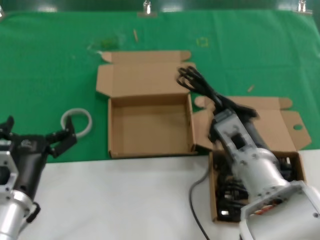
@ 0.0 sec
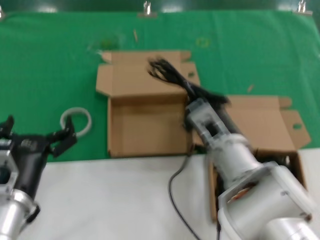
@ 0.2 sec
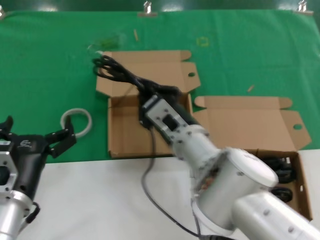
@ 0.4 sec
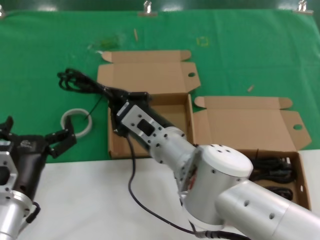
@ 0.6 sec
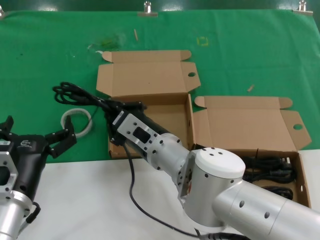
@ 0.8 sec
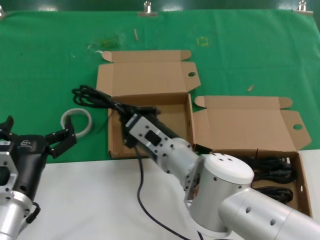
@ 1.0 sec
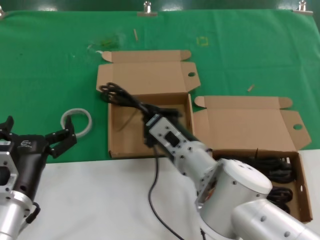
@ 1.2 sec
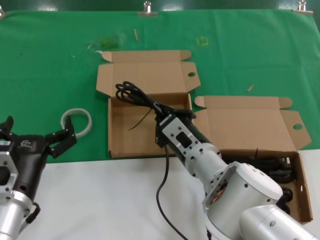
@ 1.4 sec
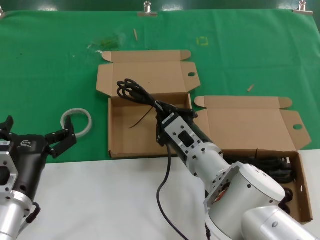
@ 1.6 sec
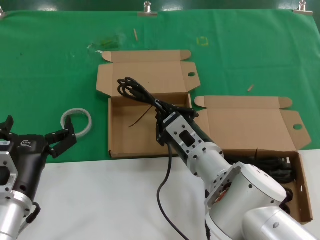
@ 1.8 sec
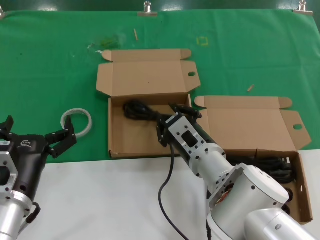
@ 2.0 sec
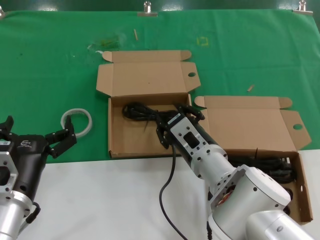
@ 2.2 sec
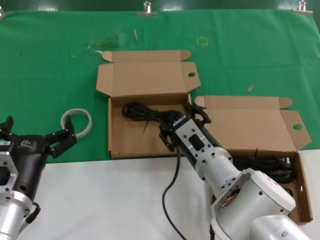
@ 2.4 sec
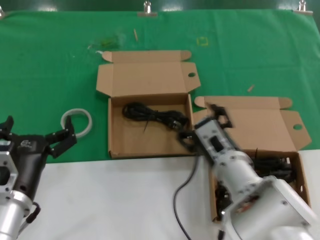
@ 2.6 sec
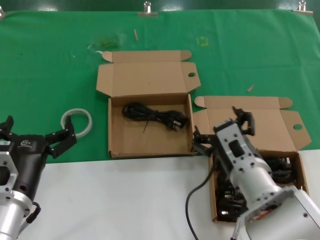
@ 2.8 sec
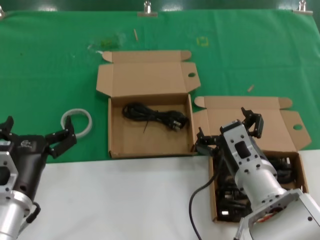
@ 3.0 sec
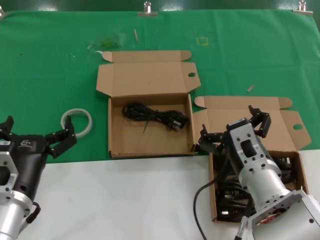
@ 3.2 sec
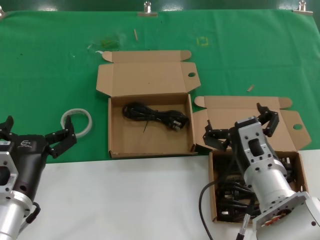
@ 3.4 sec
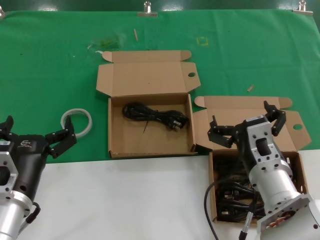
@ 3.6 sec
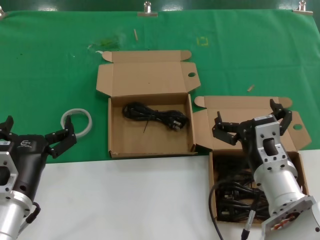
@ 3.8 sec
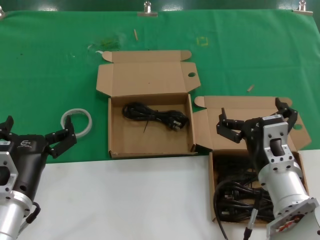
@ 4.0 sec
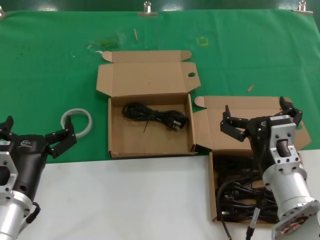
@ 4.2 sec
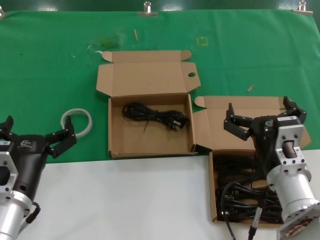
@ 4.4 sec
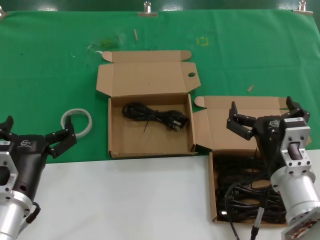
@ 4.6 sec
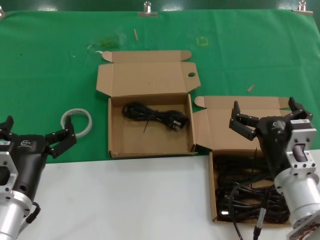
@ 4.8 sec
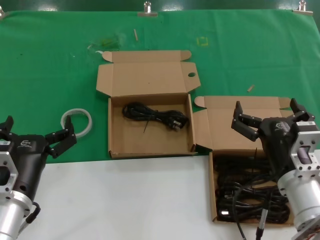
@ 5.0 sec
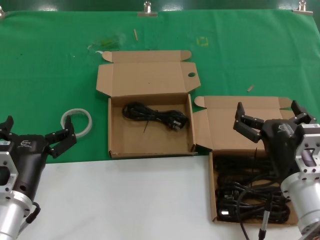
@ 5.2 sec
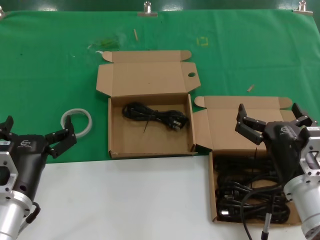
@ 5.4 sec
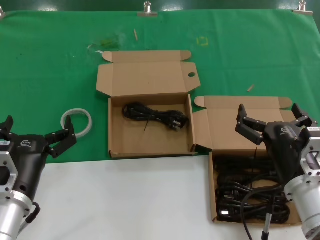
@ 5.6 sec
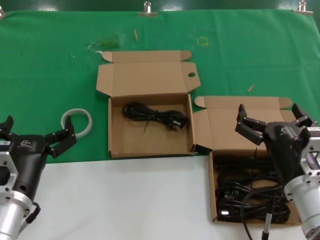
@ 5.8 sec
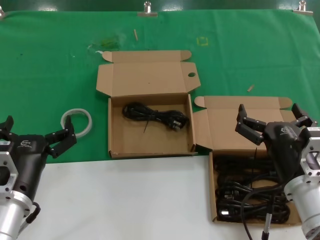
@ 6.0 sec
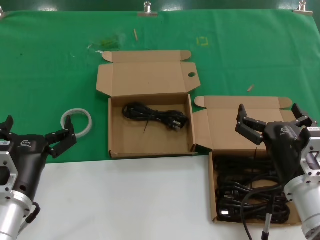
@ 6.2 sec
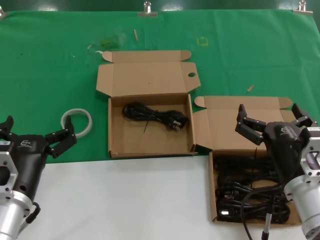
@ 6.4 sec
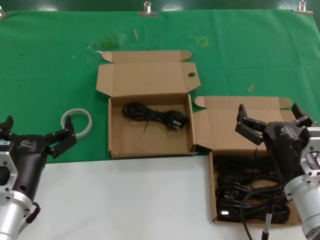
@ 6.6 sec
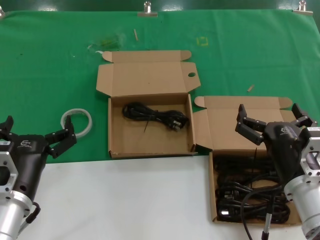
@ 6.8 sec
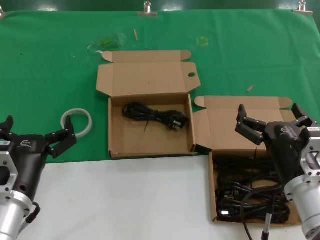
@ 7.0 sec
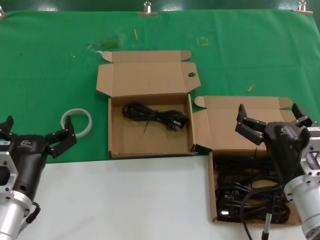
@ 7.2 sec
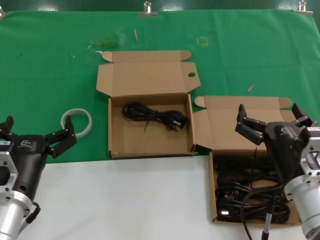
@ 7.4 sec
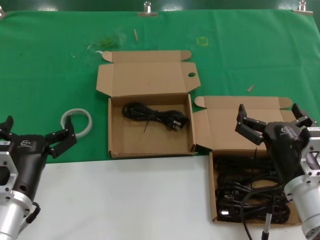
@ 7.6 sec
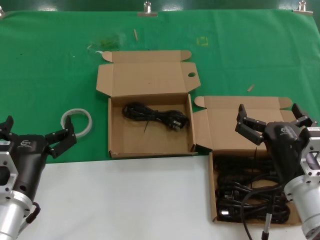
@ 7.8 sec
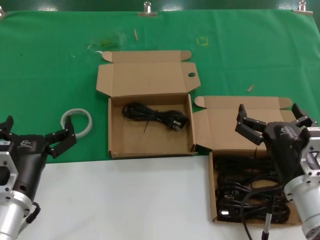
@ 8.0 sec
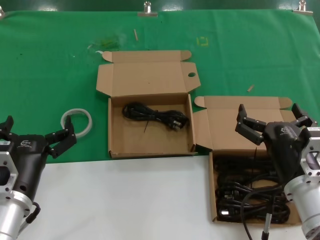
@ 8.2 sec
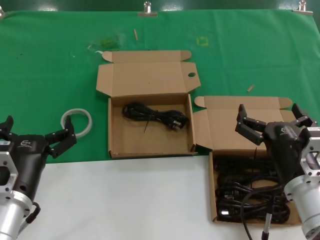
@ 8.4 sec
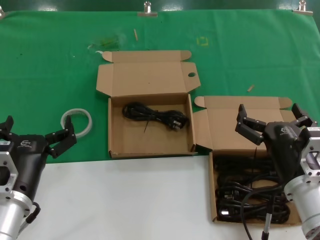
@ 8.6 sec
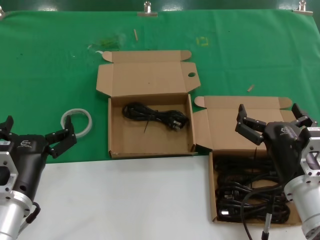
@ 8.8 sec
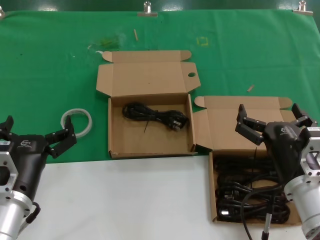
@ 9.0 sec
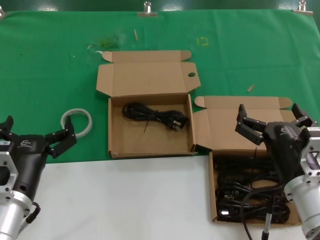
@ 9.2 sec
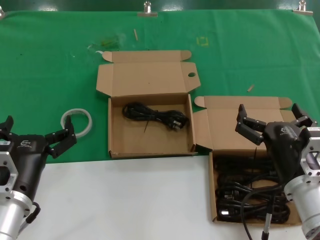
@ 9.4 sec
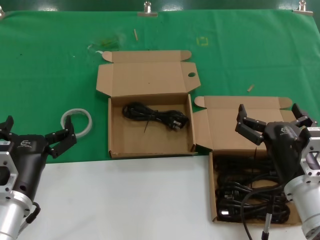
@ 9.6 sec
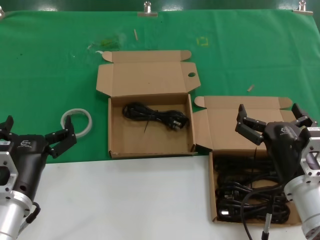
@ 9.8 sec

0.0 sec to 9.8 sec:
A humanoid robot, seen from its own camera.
Task of the whole recording: take the parts from the box containing them and put them into an empty box.
Step, 0.0 sec to 2.0 sec: Place the data cable in the another box.
0.0 sec to 1.4 sec: The right hand moves forward and to the left, some 10 cm.
1.4 sec to 2.8 sec: The right hand shifts some 5 cm to the right.
2.8 sec to 4.2 sec: The right hand ends up about 5 cm from where it was.
4.2 sec to 5.6 sec: The hands make only small movements.
5.6 sec to 9.8 sec: Both hands stay about where they are.

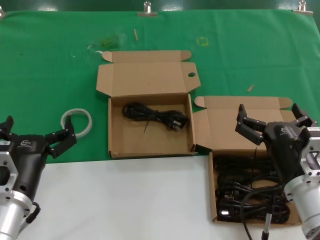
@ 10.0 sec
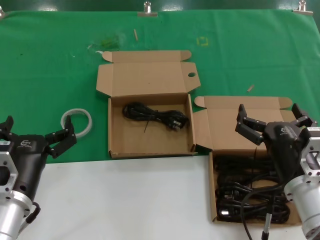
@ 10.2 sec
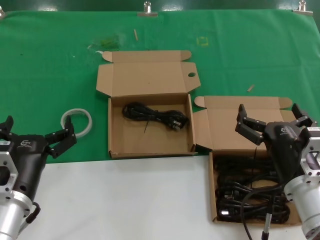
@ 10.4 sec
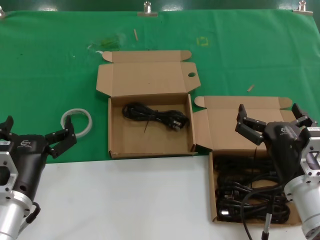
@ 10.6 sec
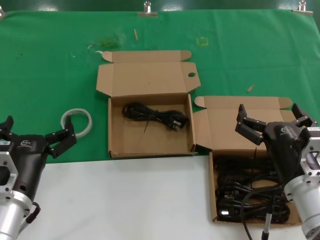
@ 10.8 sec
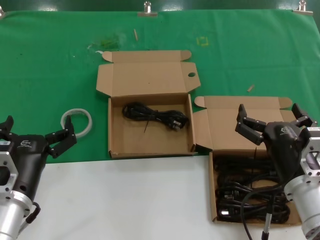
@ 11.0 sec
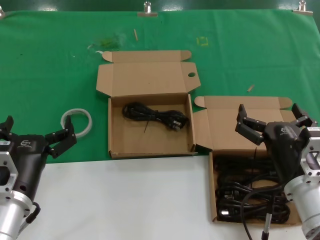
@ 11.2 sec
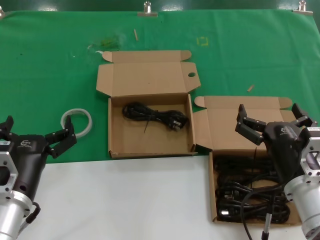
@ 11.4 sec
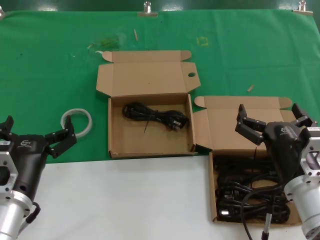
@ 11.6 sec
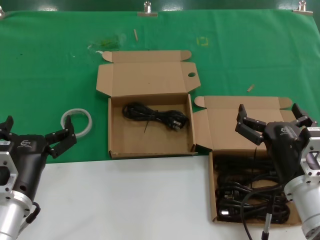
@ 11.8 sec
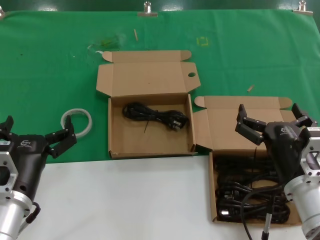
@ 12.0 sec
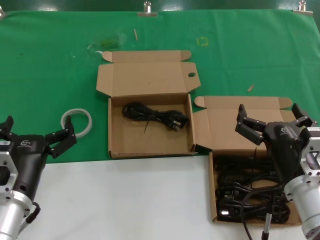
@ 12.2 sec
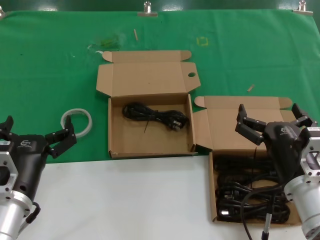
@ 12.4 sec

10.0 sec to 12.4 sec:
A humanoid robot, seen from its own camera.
Task of the whole recording: take the parts from the box containing them and put them into an empty box.
10.0 sec to 12.4 sec: Both hands stay put.
